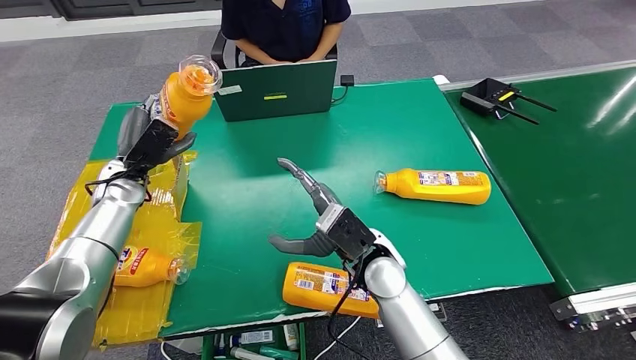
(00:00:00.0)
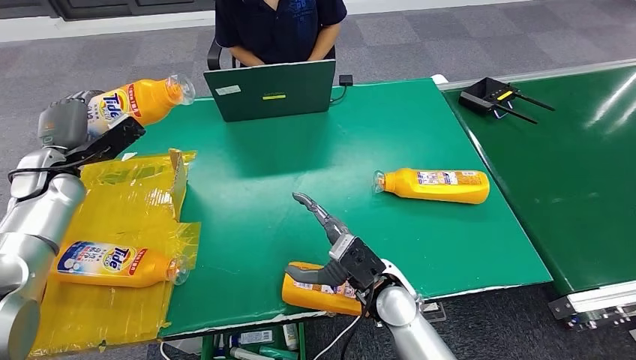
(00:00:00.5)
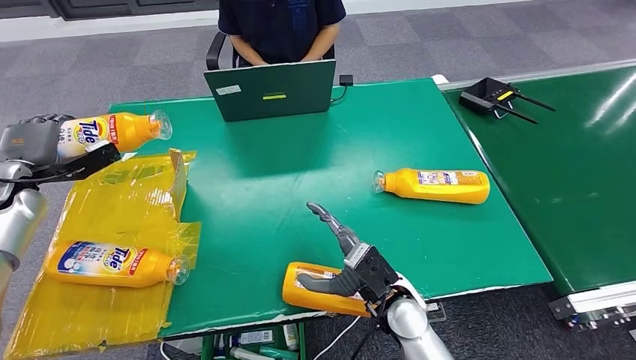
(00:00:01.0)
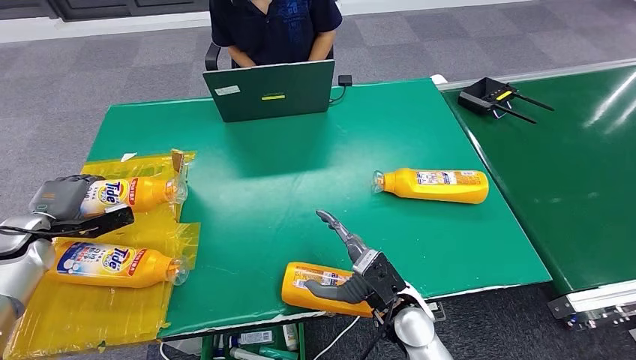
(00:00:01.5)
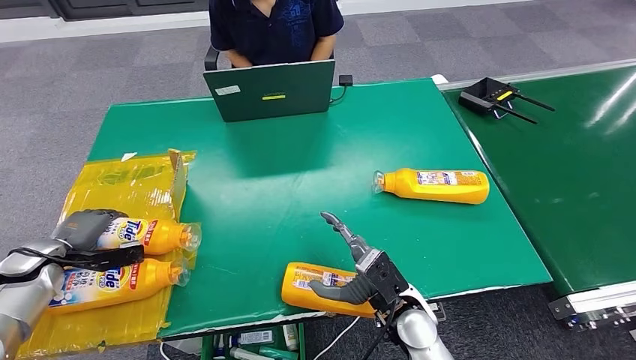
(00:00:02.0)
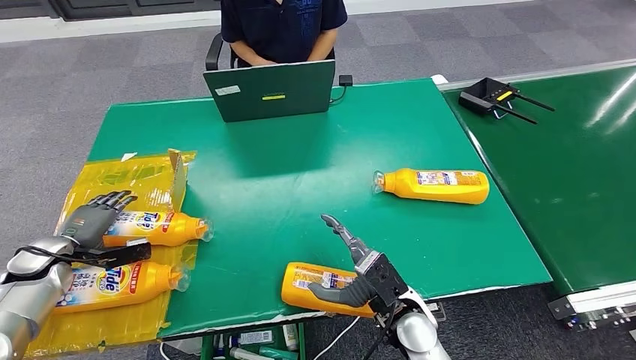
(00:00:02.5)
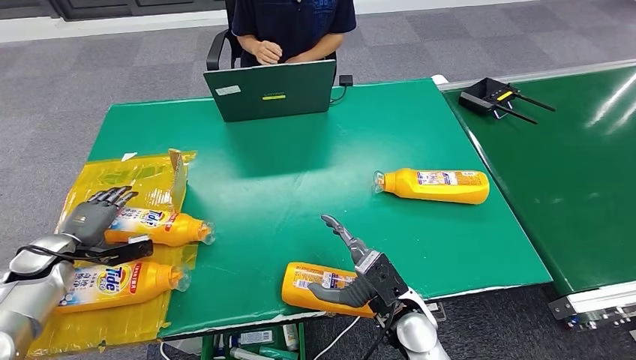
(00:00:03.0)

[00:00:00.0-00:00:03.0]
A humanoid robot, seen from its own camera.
Step, 00:00:00.0 to 00:00:03.0: Turn the bottle to the front side.
00:00:00.0 to 00:00:01.5: The left hand moves to the left and backward, approximately 20 cm, while the right hand moves downward, backward and to the right, approximately 10 cm.
00:00:01.5 to 00:00:03.0: The hands make only small movements.

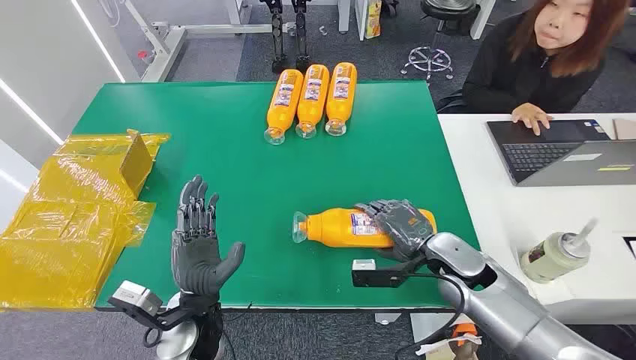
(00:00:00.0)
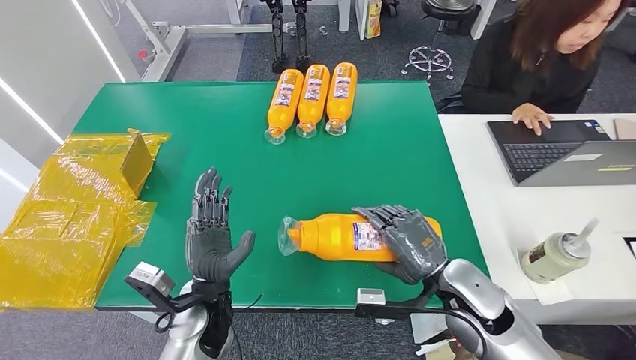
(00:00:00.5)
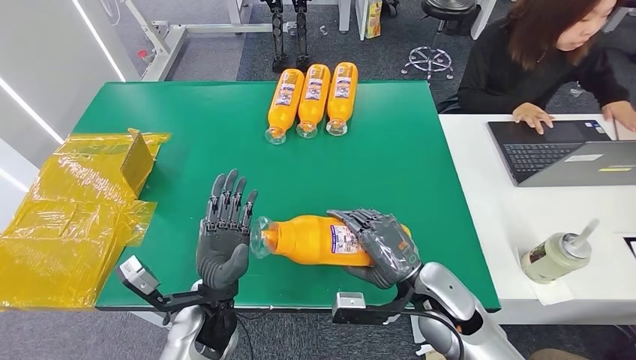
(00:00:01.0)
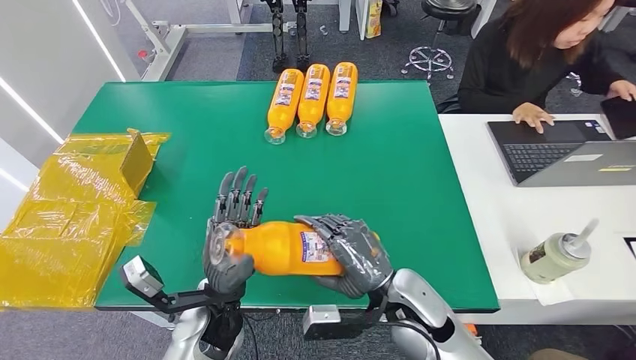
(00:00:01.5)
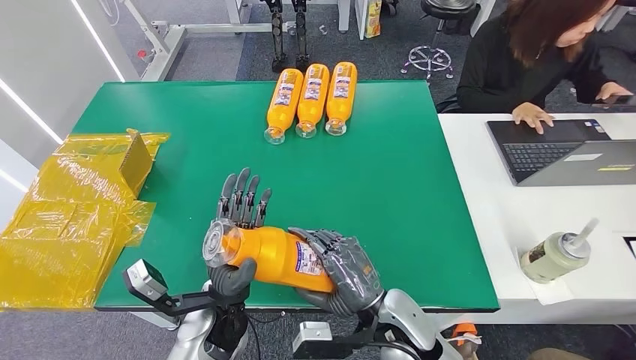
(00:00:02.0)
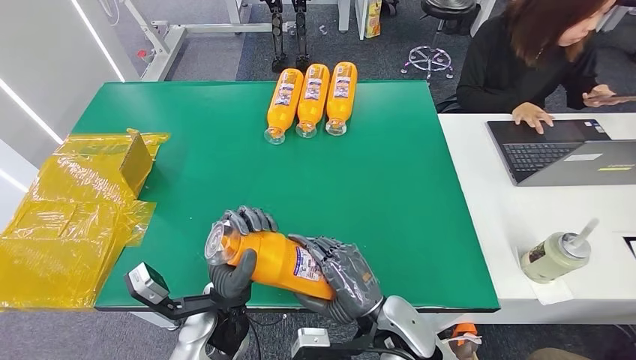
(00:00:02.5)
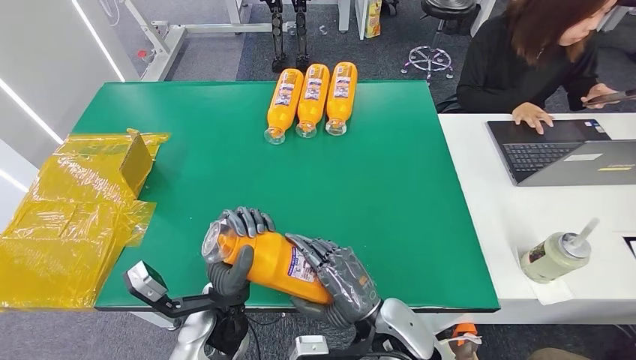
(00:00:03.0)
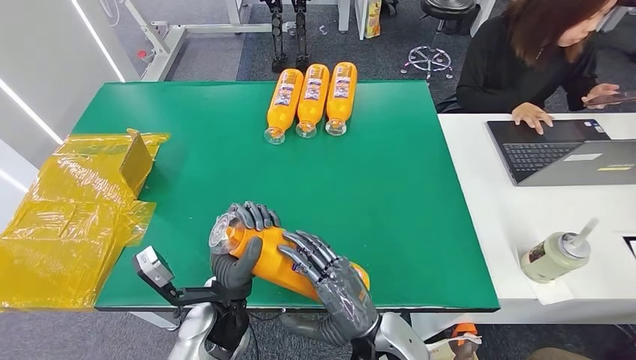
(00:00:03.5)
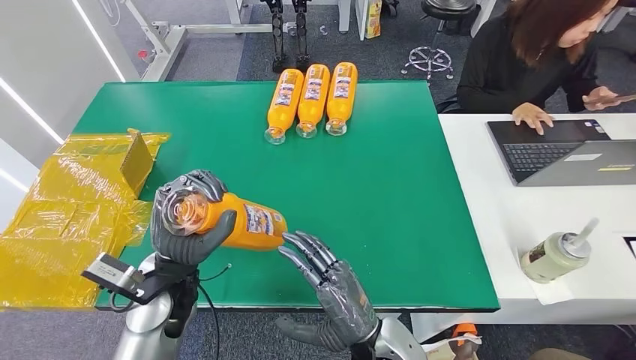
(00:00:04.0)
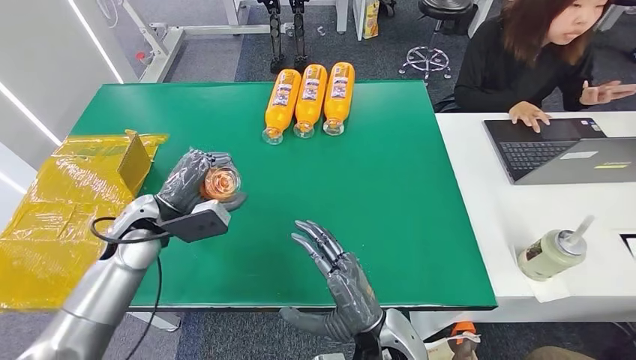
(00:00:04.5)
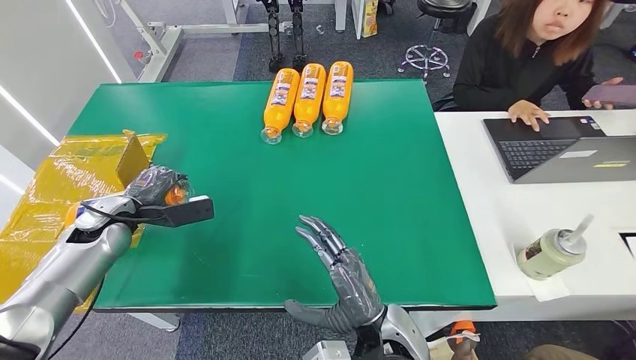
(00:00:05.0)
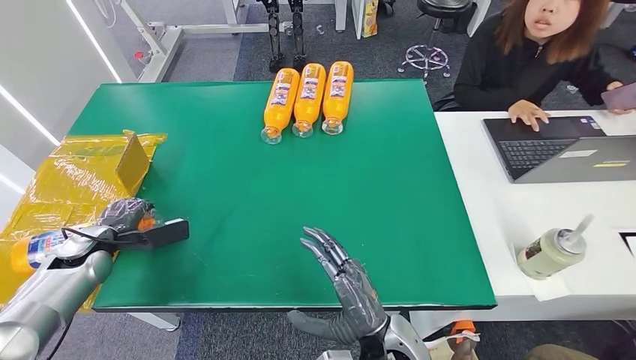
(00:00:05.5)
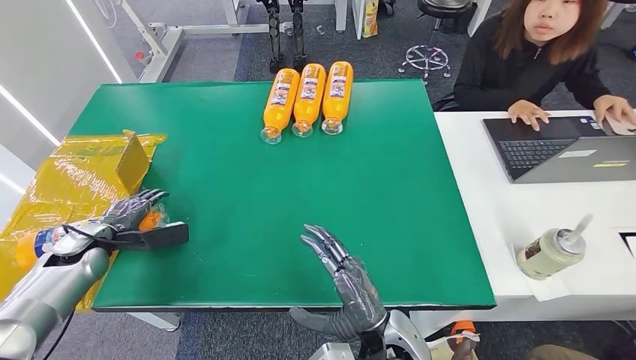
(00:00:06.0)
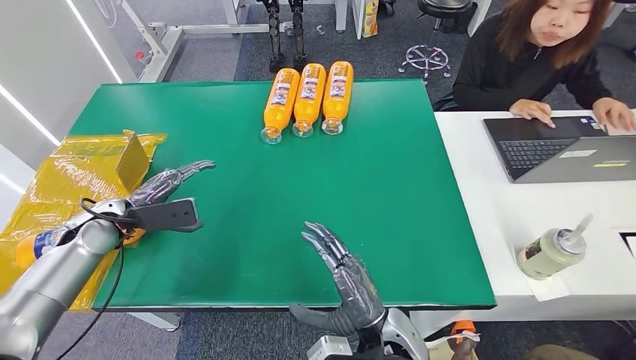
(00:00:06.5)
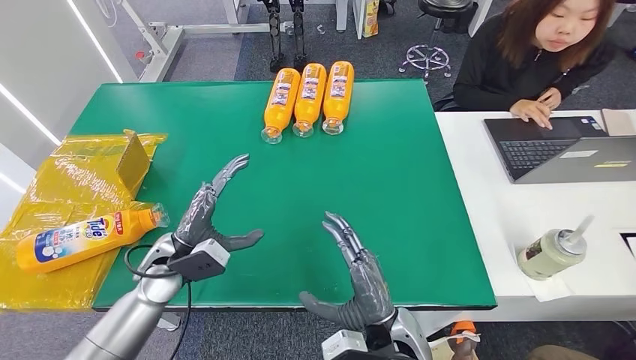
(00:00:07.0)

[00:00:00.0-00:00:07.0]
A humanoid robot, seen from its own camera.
Step, 00:00:00.0 to 00:00:01.5: Pick up the bottle from the table.
Step, 00:00:02.0 to 00:00:07.0: Turn the bottle to the front side.
00:00:02.0 to 00:00:03.5: The hands stay close to where they were, moving slightly.
00:00:05.0 to 00:00:07.0: The left hand travels to the right and backward by about 15 cm.
